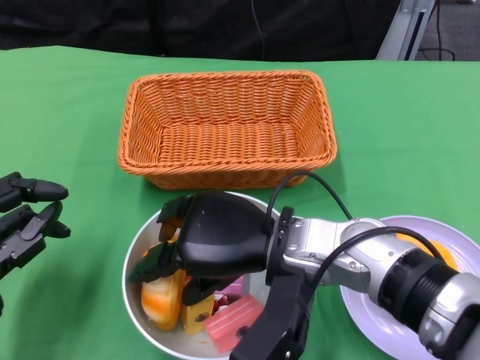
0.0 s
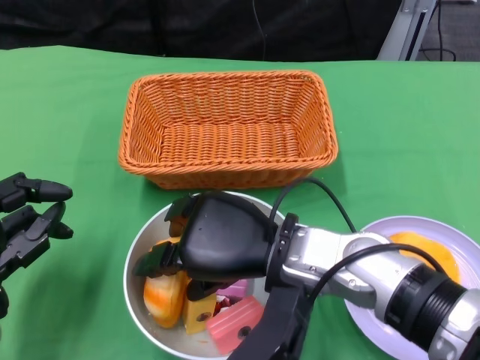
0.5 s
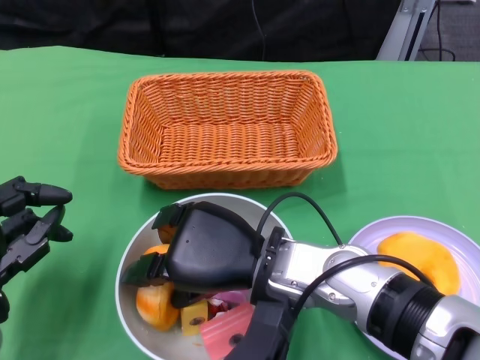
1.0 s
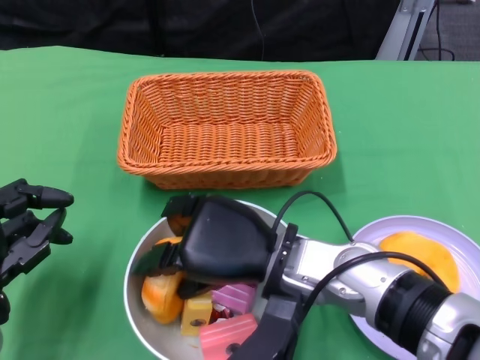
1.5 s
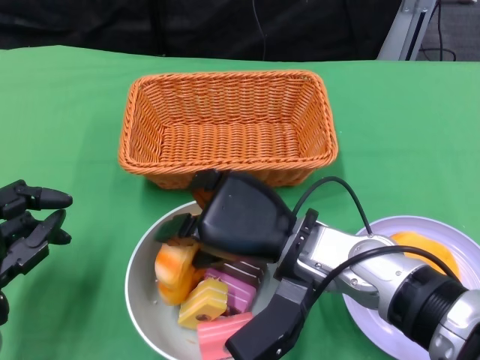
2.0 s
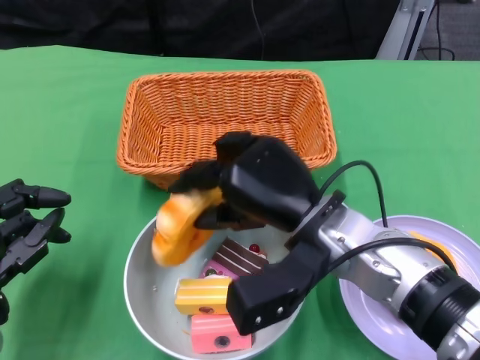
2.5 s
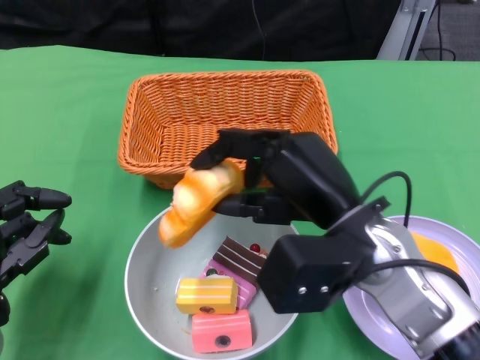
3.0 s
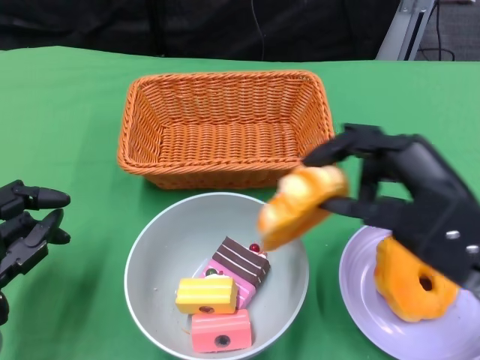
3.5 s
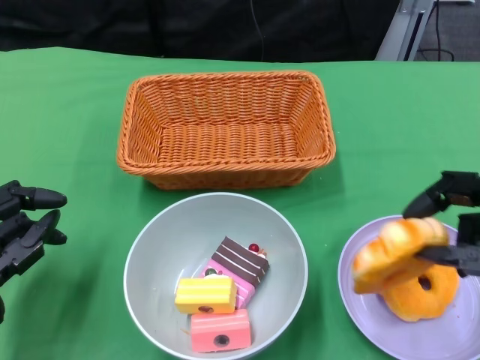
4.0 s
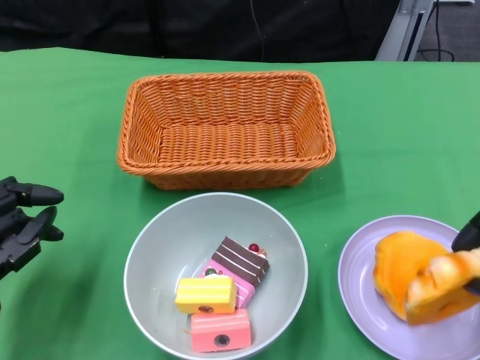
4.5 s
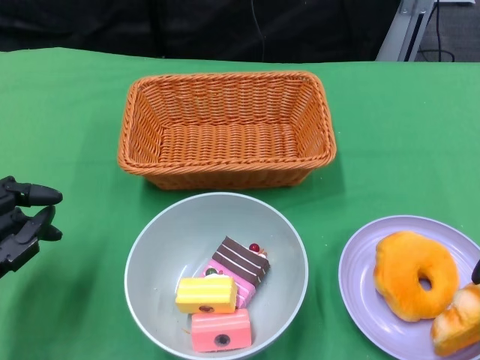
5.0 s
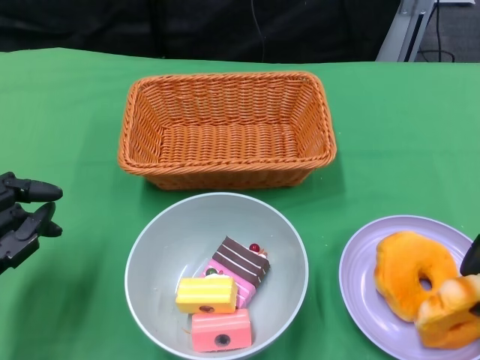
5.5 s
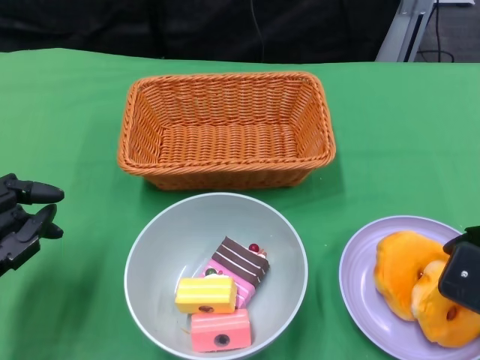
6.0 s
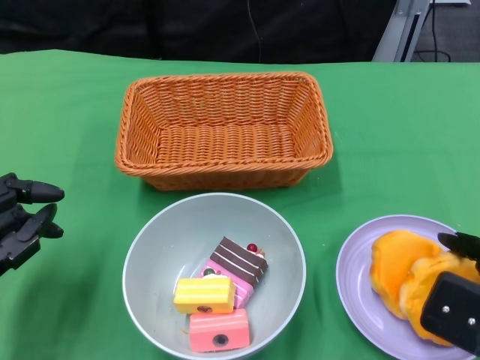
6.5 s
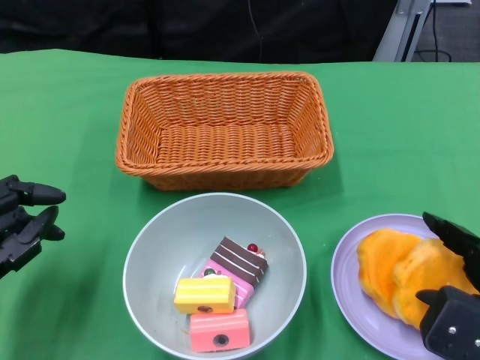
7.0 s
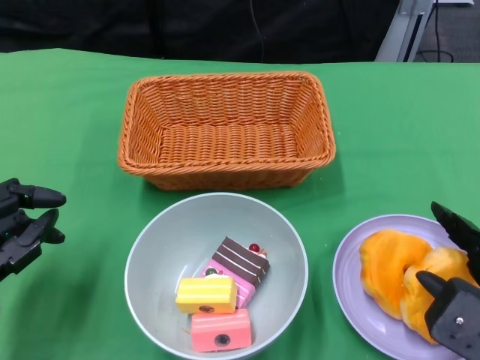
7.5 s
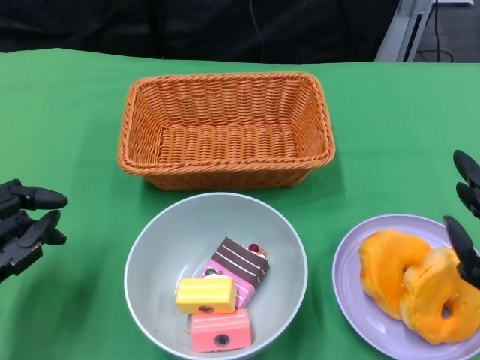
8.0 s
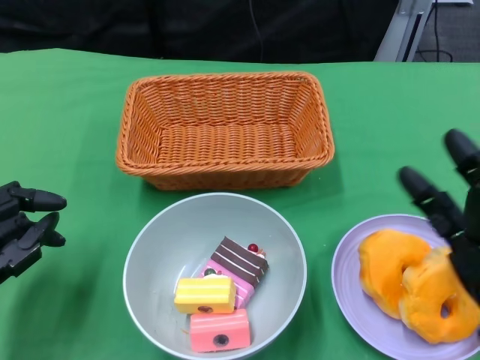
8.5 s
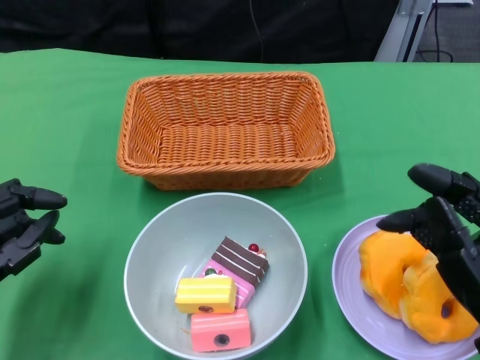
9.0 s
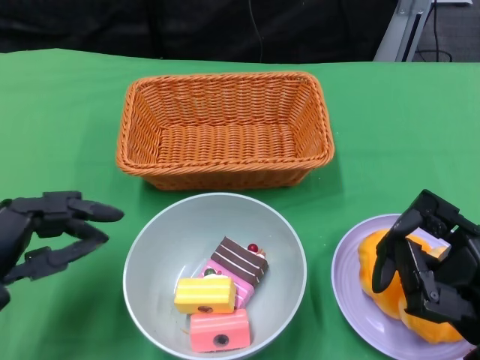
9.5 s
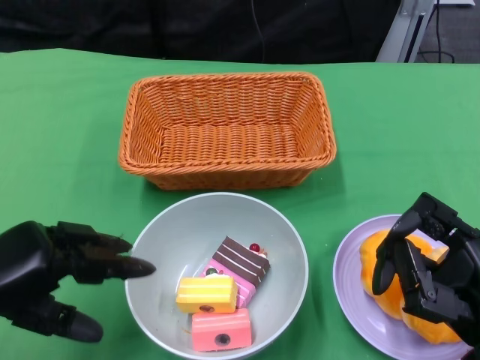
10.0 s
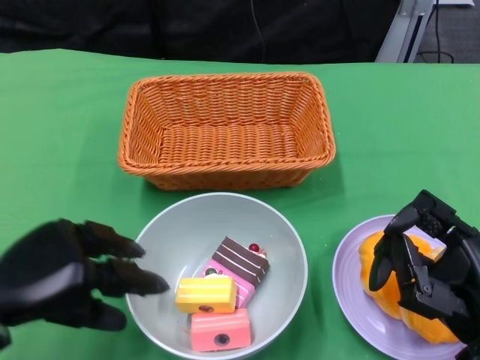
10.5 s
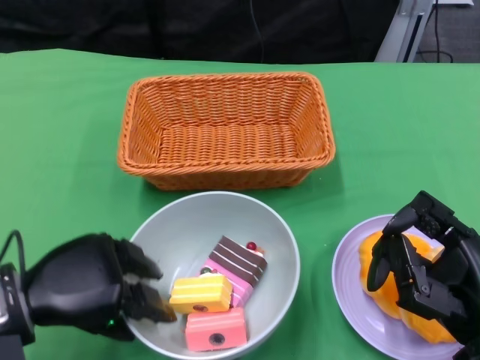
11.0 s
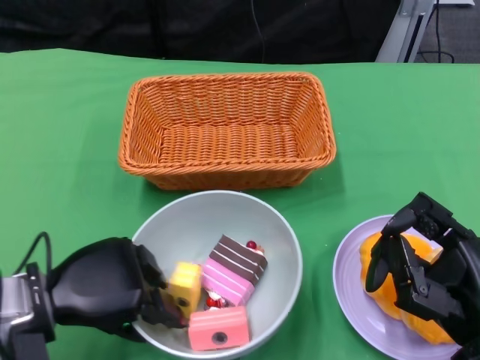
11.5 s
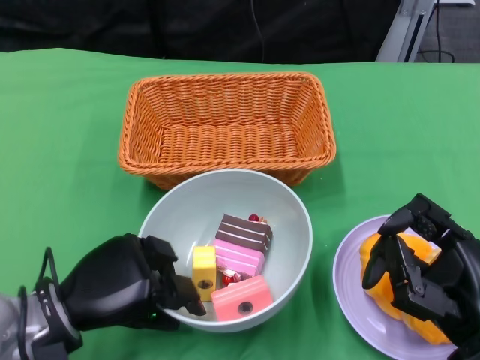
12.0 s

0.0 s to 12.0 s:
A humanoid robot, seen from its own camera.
Step, 0.0 to 7.5 s: Pick up the bread with the right gripper and place it on the plate.
Step, 8.0 to 11.0 s: Grasp the bowl with the left gripper.
2.0 to 4.0 s: The right hand goes some 20 cm to the right.
8.0 to 10.0 s: The left hand goes roughly 5 cm upward.
10.0 to 12.0 s: The left hand heads to the right and downward, covering roughly 10 cm.

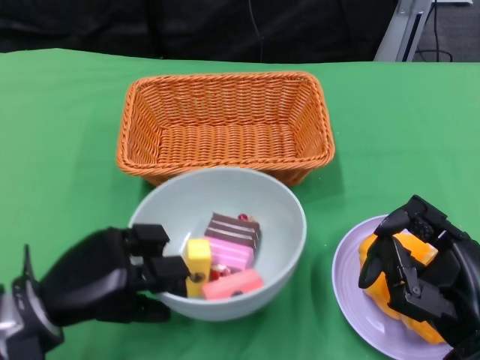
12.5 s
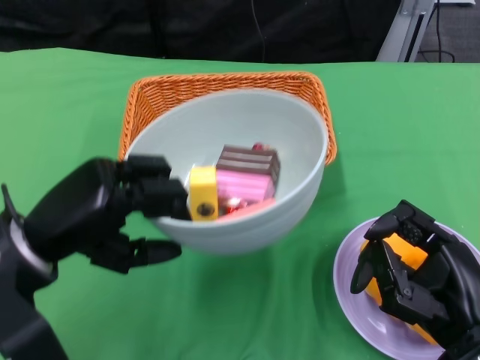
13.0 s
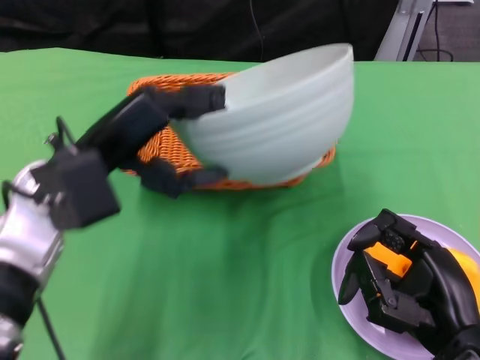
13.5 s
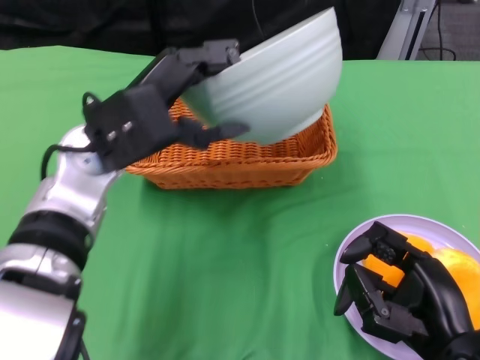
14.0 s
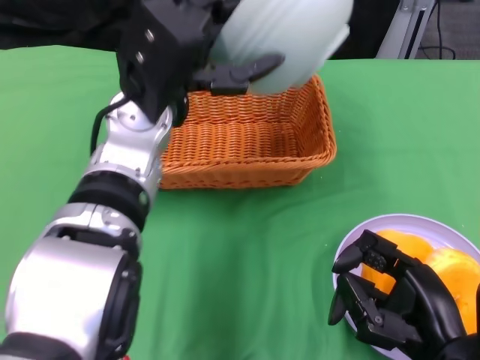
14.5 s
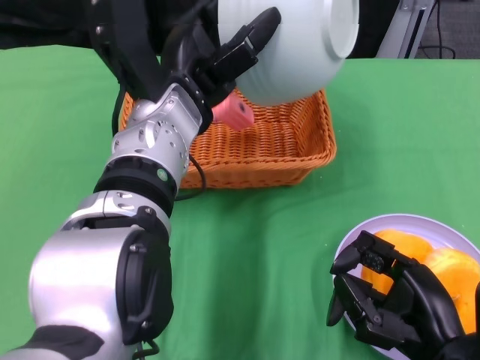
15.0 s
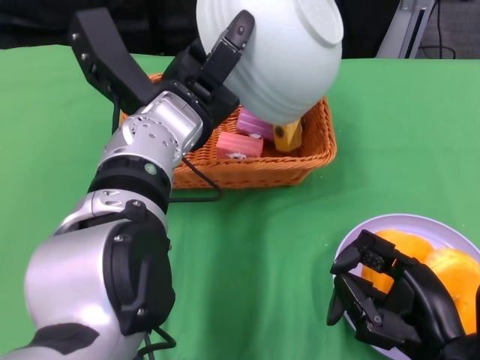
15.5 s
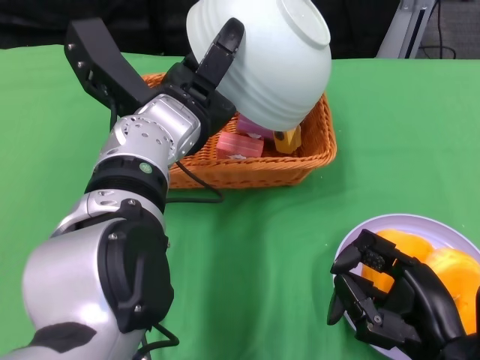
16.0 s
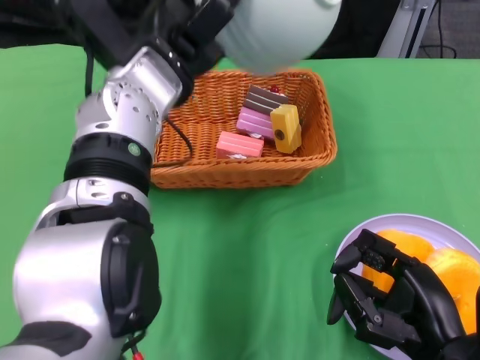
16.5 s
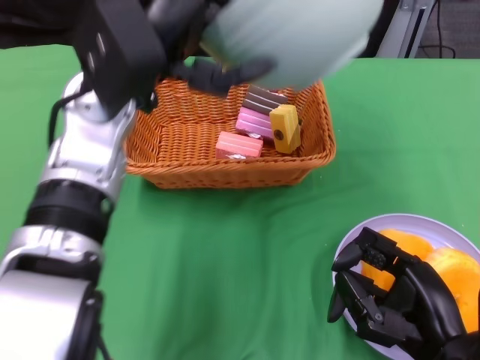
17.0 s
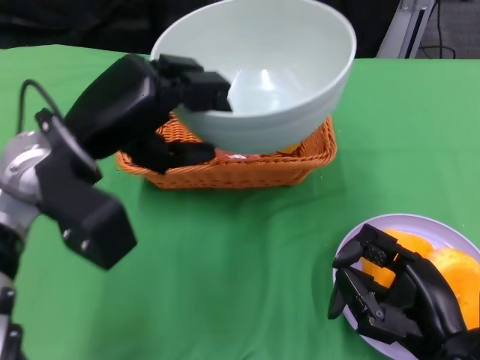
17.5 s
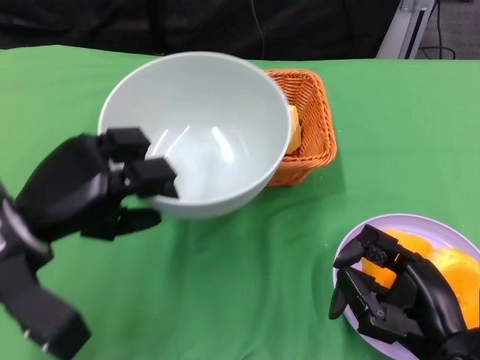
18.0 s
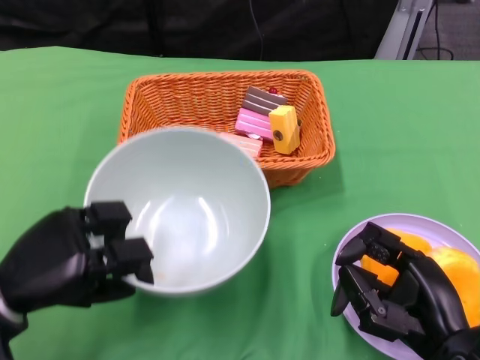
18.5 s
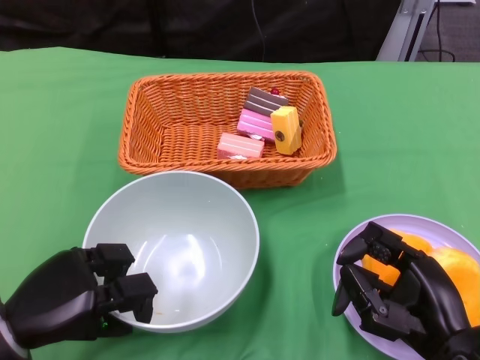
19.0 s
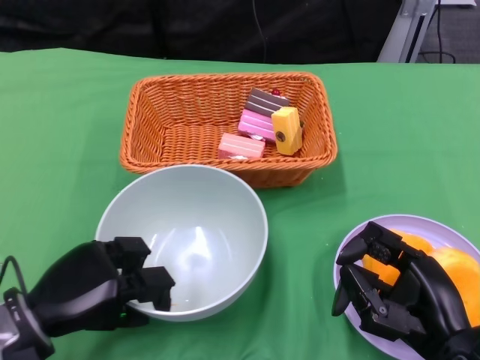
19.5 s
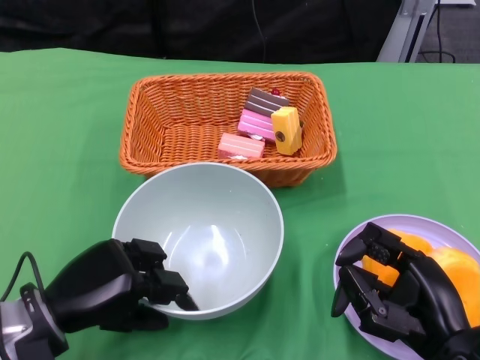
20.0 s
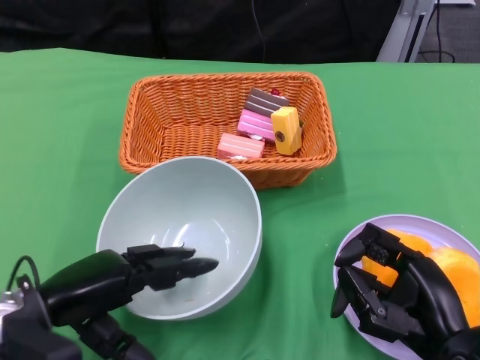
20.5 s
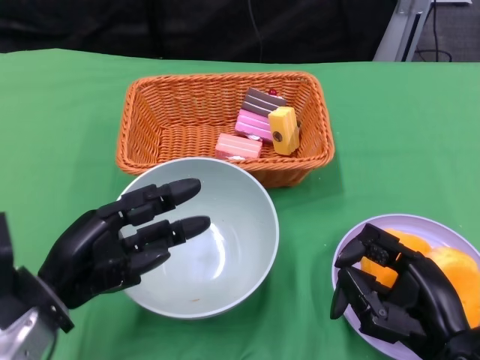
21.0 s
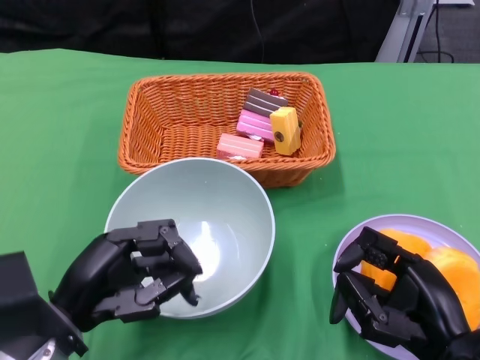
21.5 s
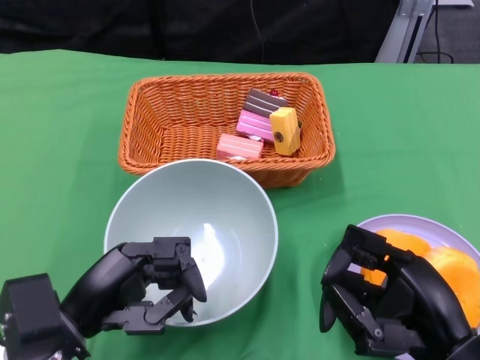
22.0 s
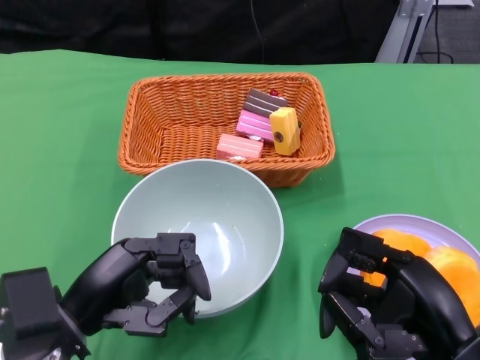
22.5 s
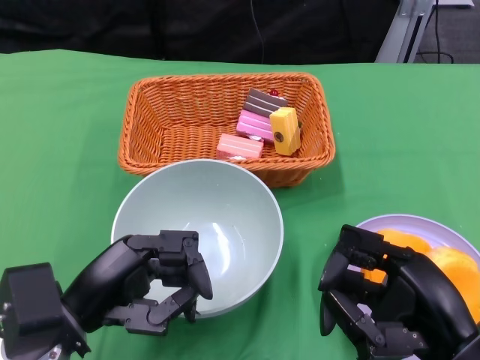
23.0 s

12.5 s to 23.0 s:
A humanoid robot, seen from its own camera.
Step, 12.5 to 16.0 s: Pour the cake into the basket with the left gripper.
Step, 17.0 to 20.5 s: Place the bowl on the table with the left gripper.
12.5 to 14.5 s: The left hand goes about 25 cm upward, to the right and forward.
16.5 to 19.0 s: The left hand heads downward, to the left and backward, covering about 30 cm.
19.0 to 21.0 s: The left hand changes place by roughly 5 cm.

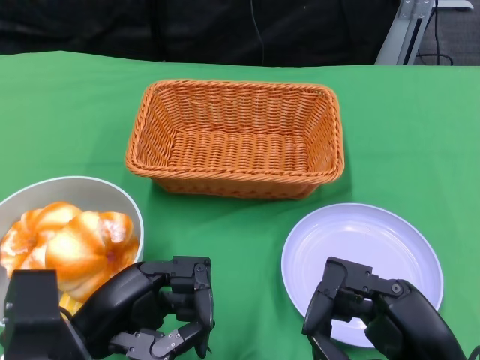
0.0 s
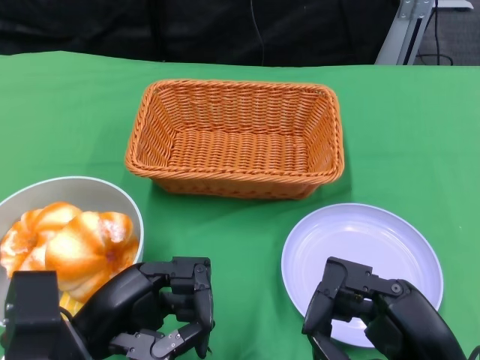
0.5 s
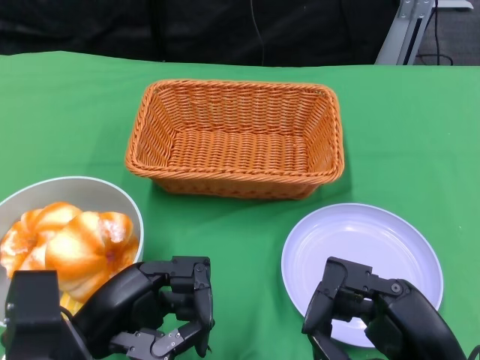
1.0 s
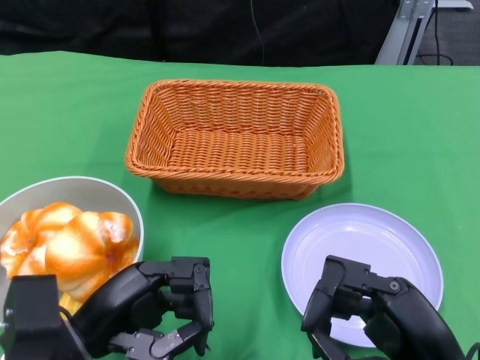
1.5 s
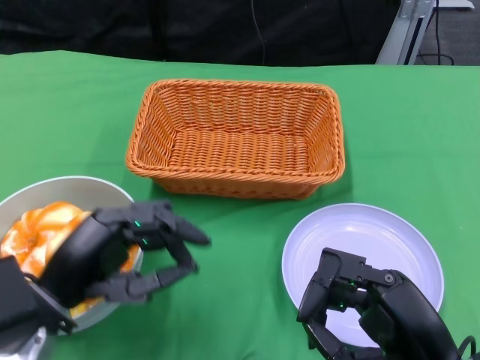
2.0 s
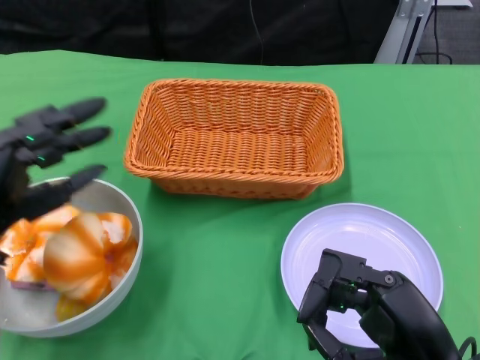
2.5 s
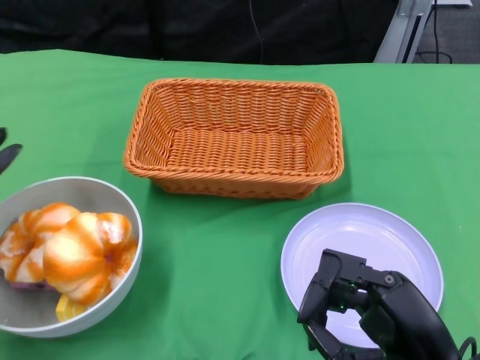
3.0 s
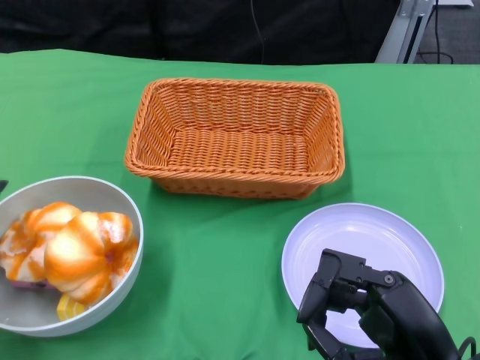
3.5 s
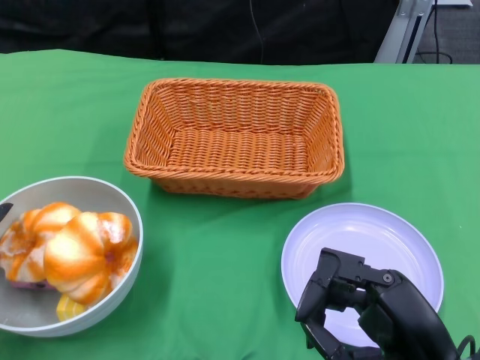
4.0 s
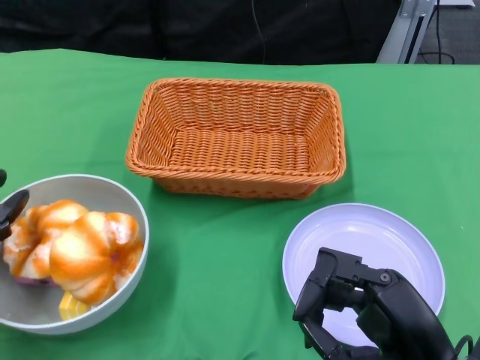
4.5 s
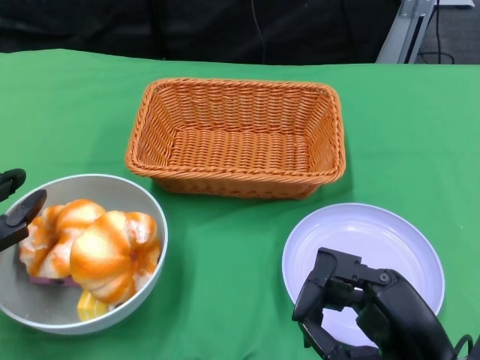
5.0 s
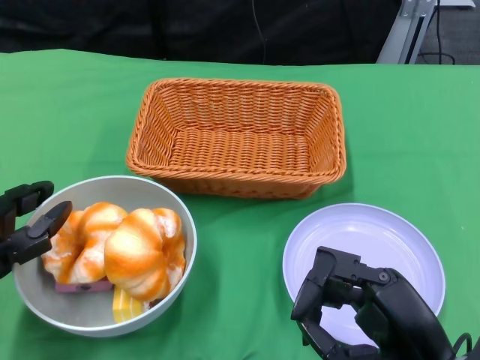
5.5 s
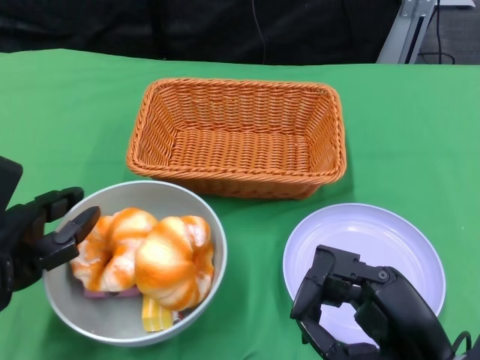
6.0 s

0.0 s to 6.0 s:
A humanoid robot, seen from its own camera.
2.0 to 4.0 s: The left hand moves to the left, about 10 cm.
4.0 to 6.0 s: The left hand moves to the right, about 5 cm.
